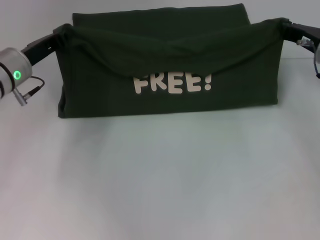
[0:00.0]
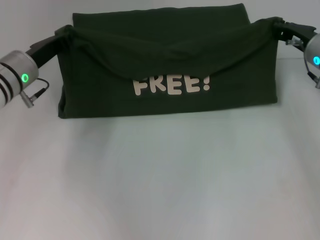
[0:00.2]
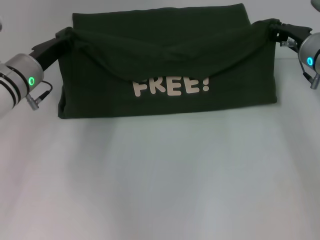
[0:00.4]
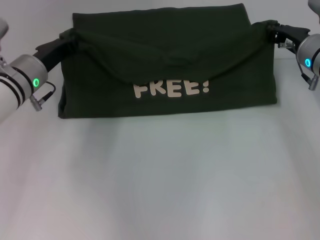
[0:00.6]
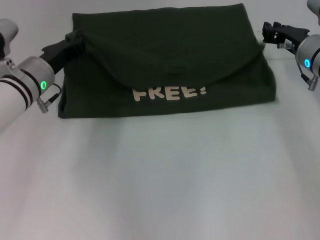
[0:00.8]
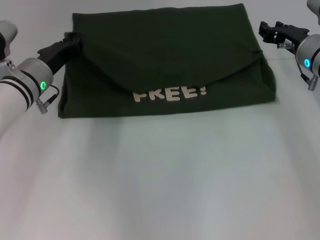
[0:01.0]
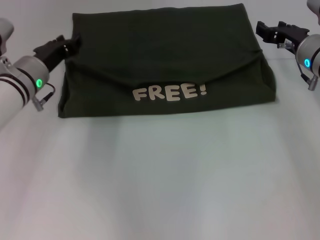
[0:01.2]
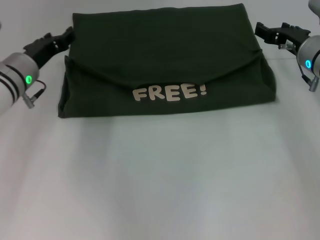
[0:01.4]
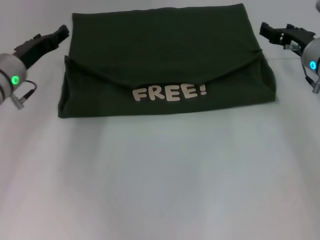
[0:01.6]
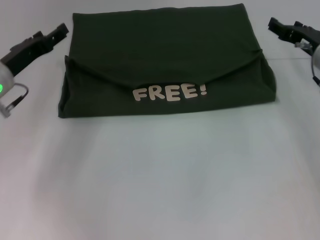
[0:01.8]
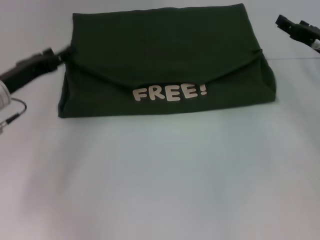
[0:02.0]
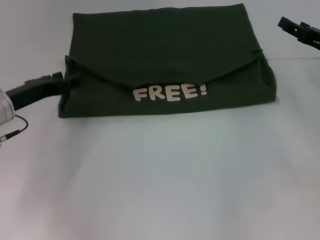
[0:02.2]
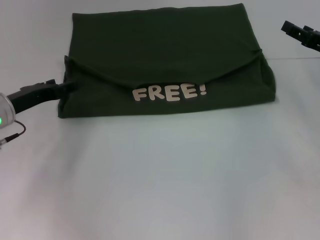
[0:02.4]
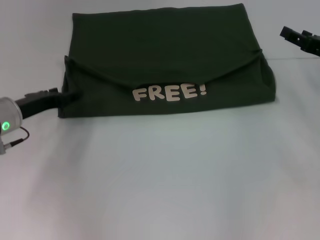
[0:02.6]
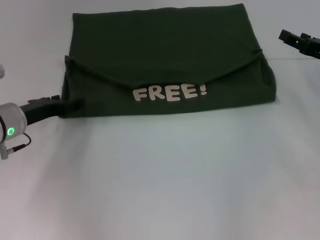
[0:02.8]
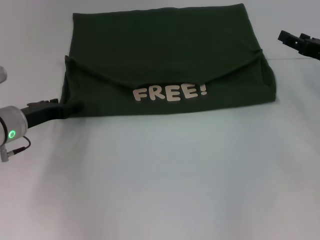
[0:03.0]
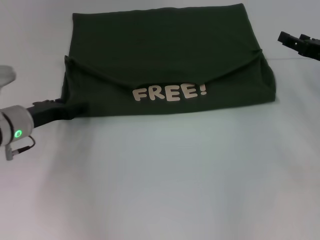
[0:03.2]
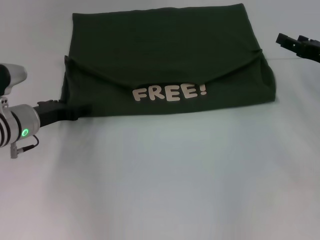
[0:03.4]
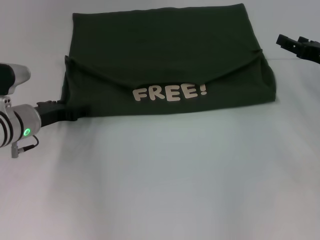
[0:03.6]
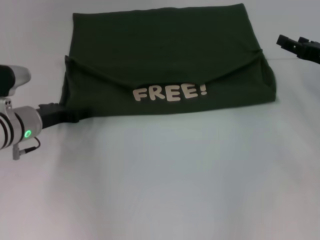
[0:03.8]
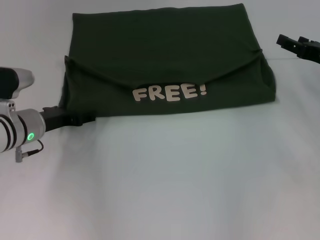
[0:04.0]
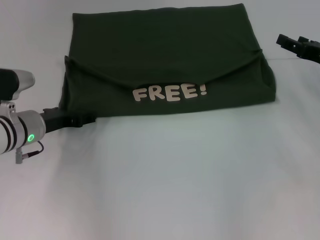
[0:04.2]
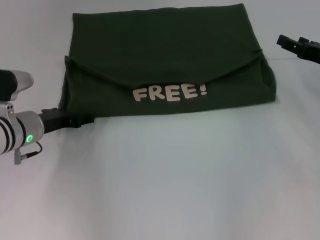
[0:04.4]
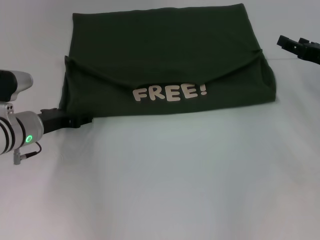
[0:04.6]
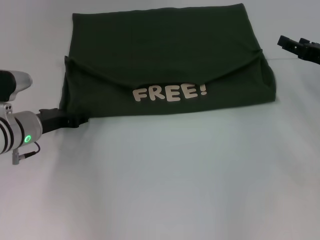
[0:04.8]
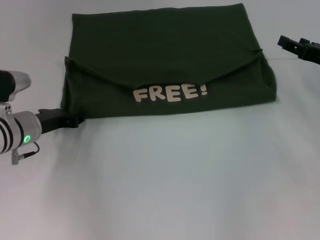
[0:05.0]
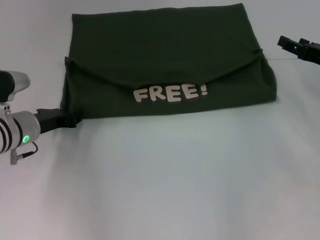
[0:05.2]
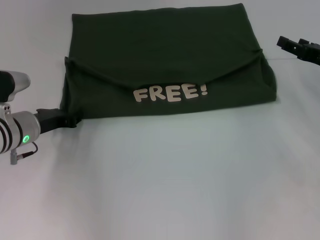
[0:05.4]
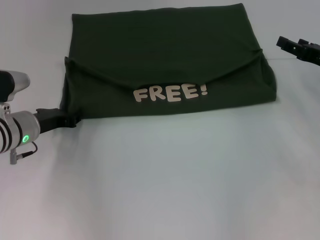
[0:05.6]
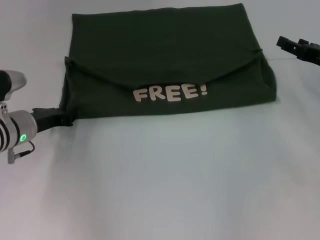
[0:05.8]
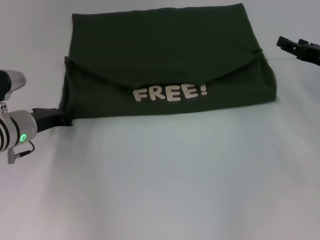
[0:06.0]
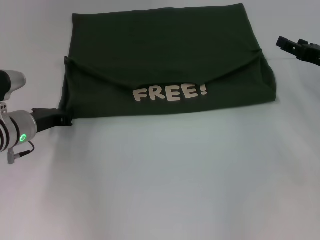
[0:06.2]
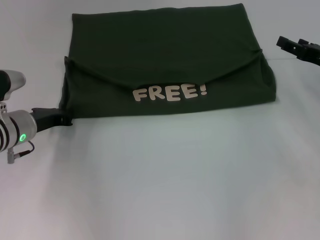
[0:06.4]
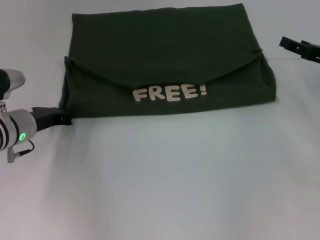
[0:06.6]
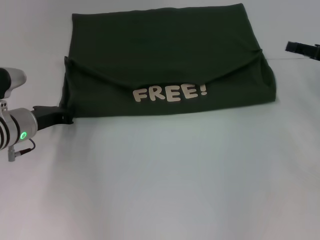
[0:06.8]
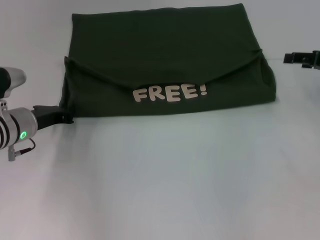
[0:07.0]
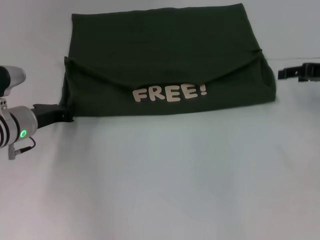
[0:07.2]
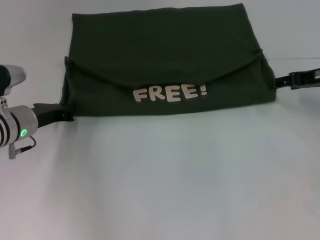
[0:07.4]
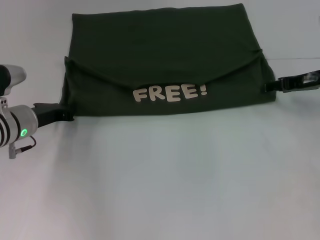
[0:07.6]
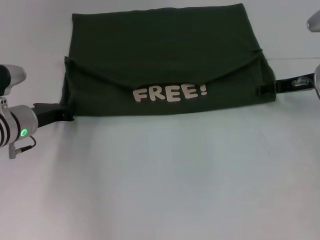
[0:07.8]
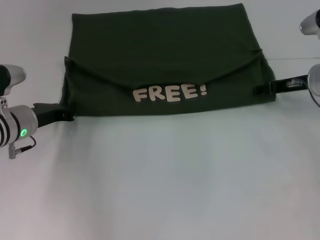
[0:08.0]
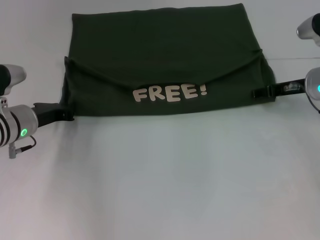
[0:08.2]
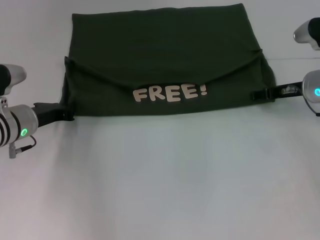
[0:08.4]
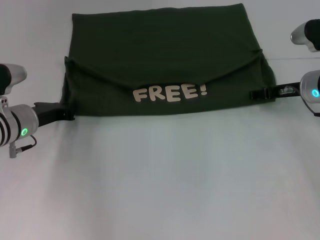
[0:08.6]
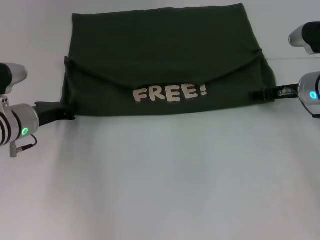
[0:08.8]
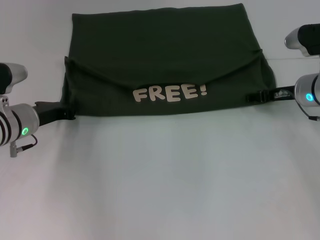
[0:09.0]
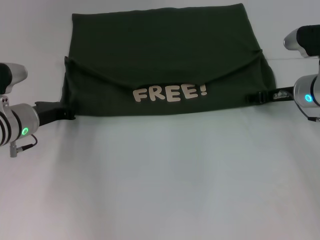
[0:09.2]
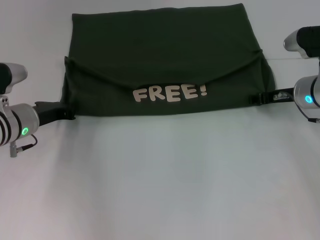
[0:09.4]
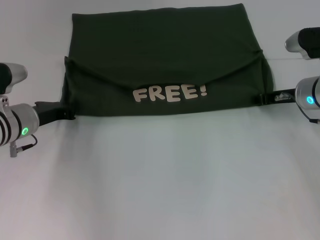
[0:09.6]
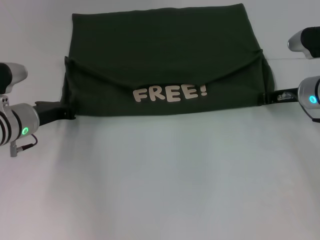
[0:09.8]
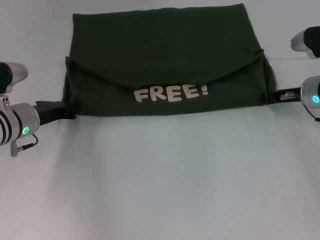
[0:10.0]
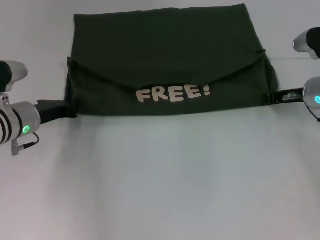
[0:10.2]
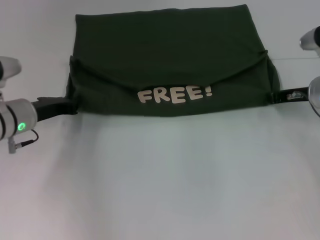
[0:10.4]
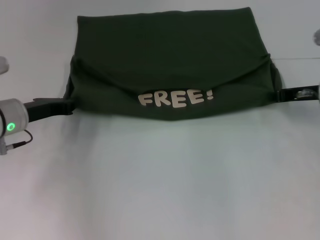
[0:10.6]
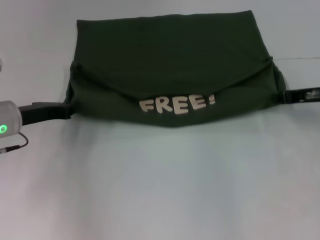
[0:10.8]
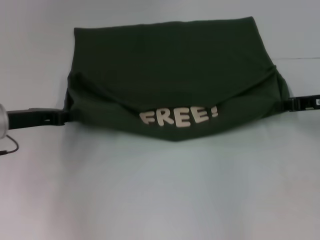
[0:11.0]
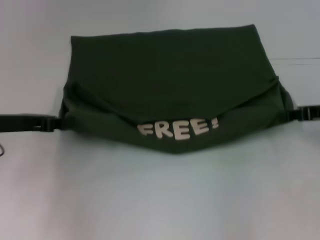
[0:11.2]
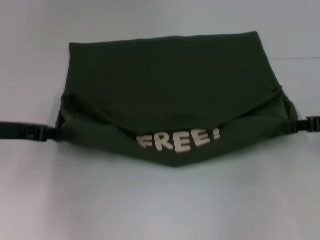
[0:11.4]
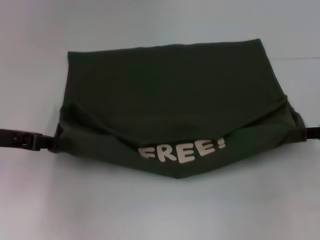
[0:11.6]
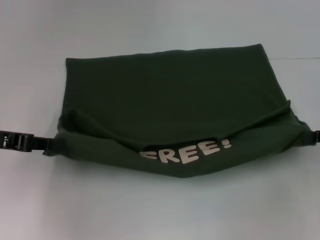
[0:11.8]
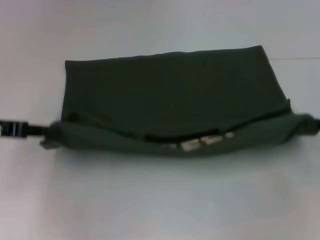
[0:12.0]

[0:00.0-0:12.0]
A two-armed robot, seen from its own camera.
Step, 0:01.0 to 0:01.2: Fold the clothes with your left hand.
Step, 0:01.4 to 0:11.6: Pull the clothes with your left hand.
Step, 0:01.4 to 0:11.6: Pull the clothes with your right hand.
0:00.0 to 0:01.6: The right gripper opens its fingers; the left gripper opens.
0:01.6 to 0:03.0: The left gripper changes place by some 5 cm, while the right gripper travels to the right by some 5 cm.
0:03.0 to 0:04.4: The grippers move only a little.
0:04.4 to 0:06.0: The left gripper closes up.
0:06.0 to 0:07.6: The right gripper moves approximately 5 cm.
0:07.6 to 0:09.0: The right gripper shifts by approximately 5 cm.
0:09.0 to 0:10.4: The right gripper closes its fingers.
0:10.4 to 0:12.0: The left gripper heads upward, to the left and backward, covering roughly 15 cm. Meanwhile the right gripper travels backward and to the right by approximately 15 cm.

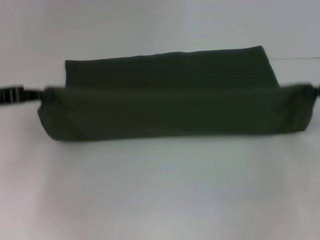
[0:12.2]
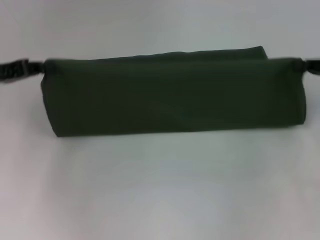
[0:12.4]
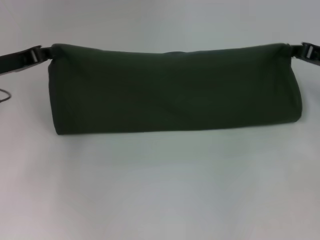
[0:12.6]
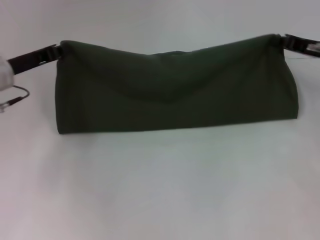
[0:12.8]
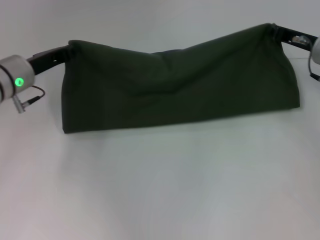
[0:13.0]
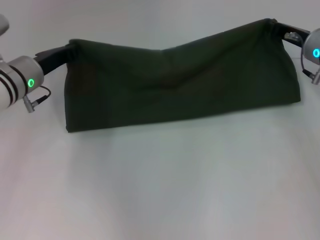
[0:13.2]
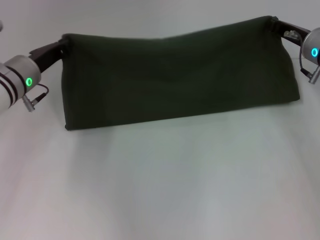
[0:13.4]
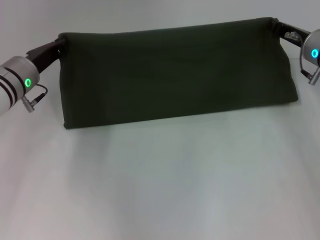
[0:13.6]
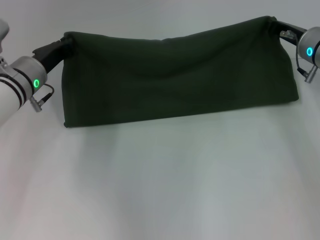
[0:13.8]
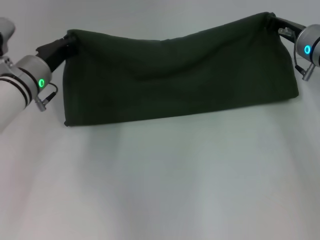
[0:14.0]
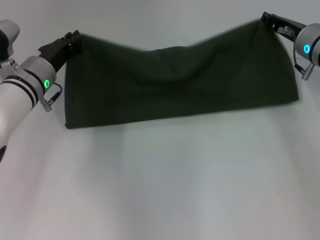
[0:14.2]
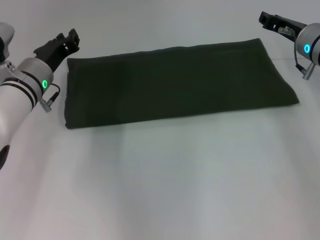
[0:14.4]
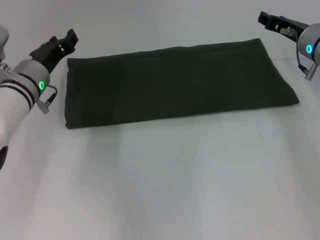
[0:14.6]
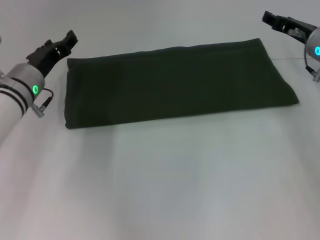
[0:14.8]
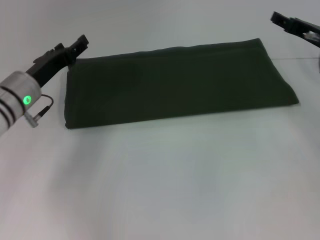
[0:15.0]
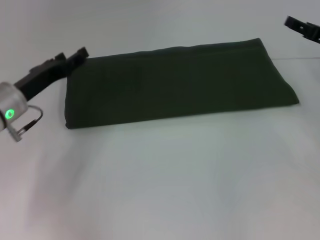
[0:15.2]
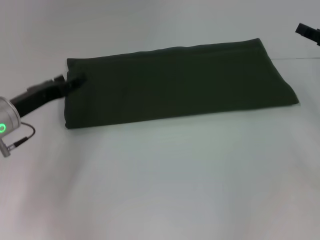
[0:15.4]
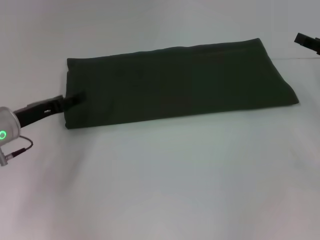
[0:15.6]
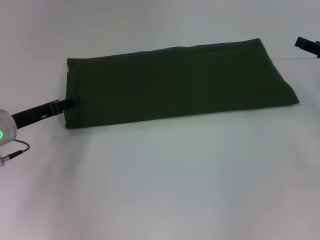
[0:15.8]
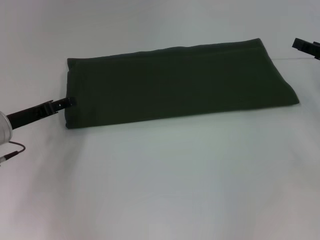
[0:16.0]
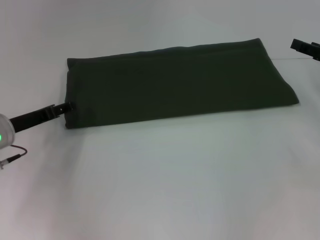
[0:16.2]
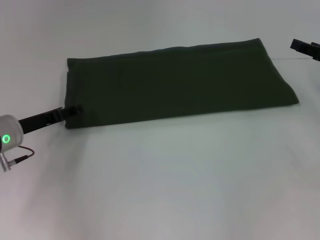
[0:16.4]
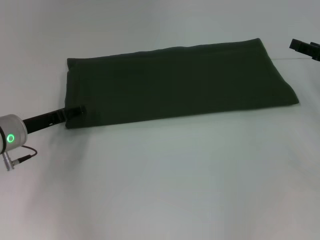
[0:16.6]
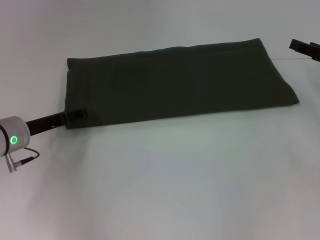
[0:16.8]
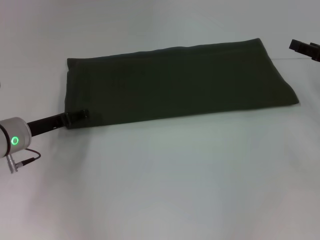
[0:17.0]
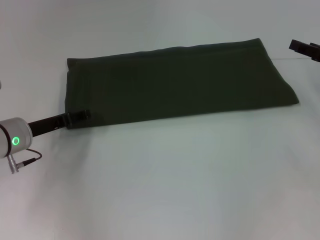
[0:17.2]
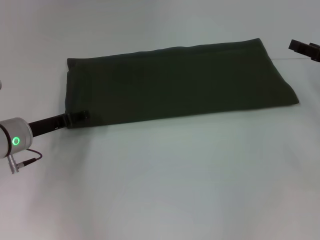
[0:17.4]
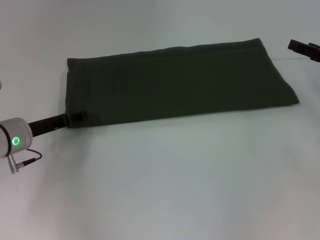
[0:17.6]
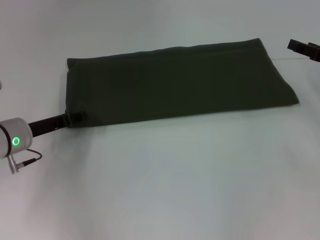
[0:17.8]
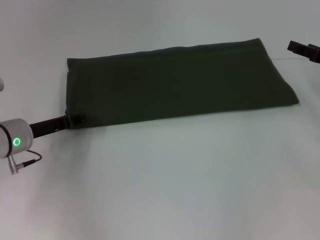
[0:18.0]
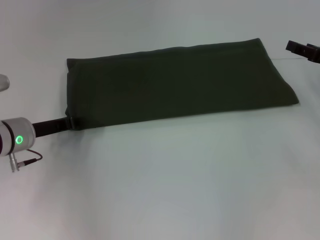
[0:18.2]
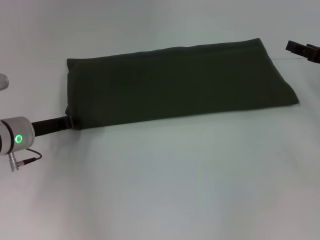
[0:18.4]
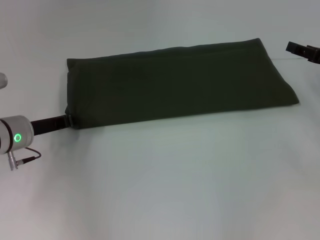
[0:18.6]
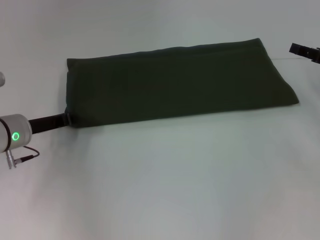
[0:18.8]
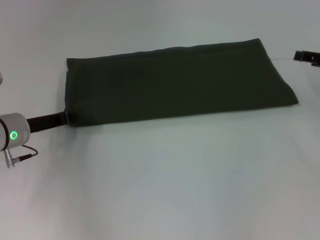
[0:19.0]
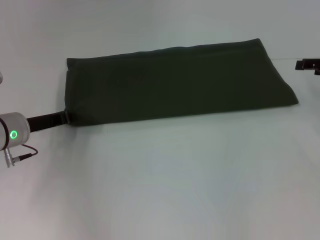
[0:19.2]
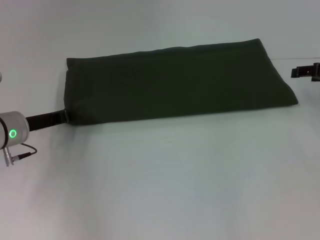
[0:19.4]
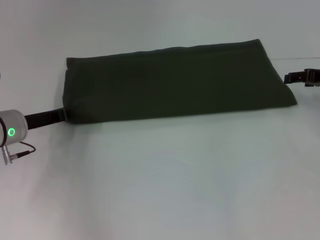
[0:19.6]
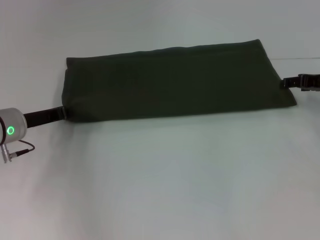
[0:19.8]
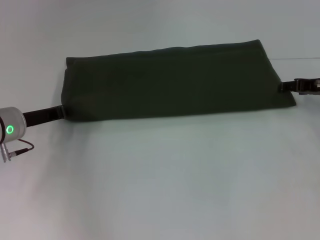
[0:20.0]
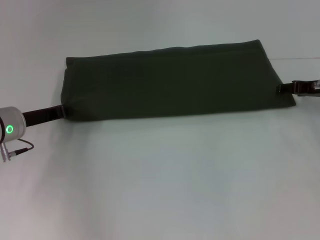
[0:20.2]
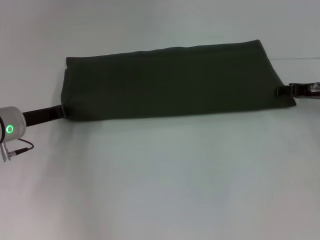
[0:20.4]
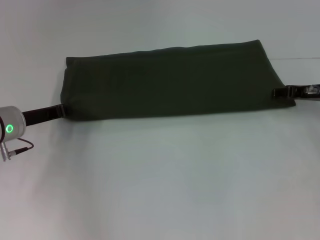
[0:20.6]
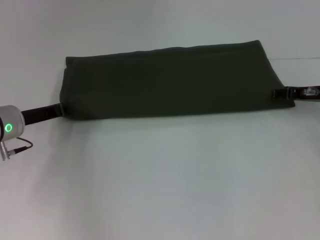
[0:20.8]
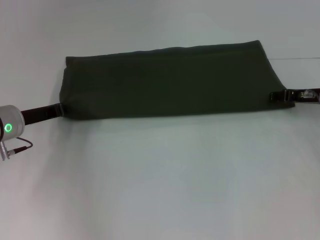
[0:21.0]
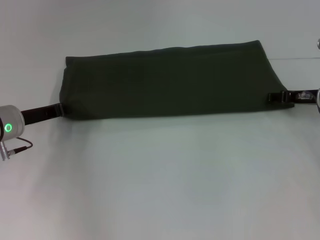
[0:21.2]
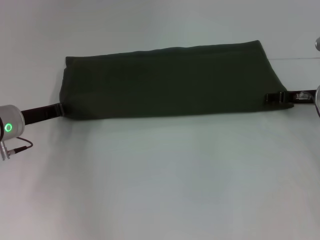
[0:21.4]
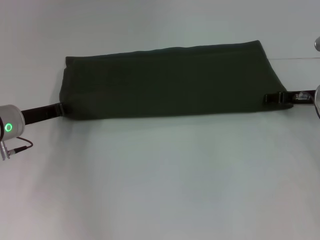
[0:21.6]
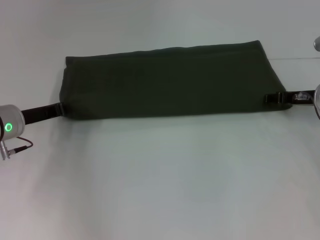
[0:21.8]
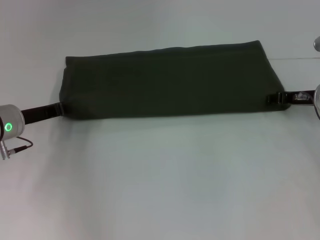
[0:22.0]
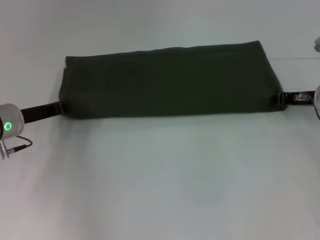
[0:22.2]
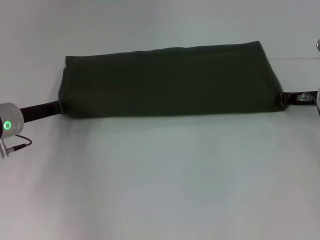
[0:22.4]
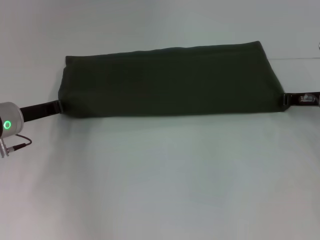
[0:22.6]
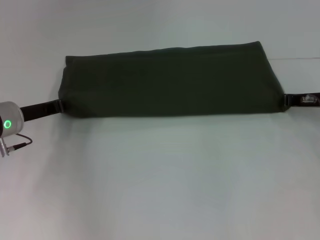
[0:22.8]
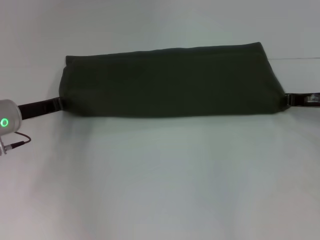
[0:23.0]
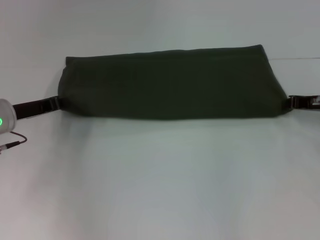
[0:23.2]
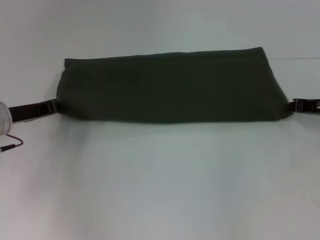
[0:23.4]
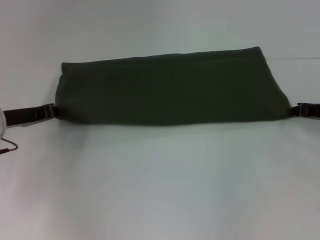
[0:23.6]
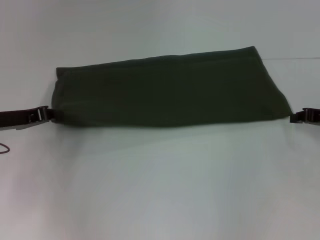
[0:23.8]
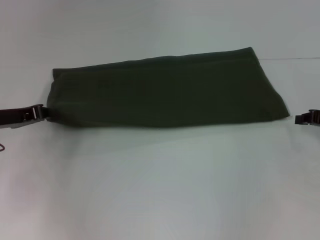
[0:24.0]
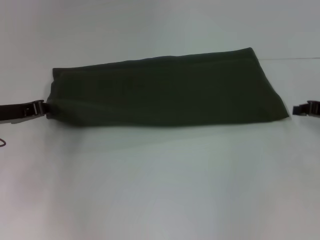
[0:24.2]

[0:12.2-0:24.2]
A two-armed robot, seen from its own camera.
Step, 0:12.2 to 0:14.4: Fold the clothes with your left hand.
Step, 0:12.2 to 0:14.4: Fold the clothes with your right hand.
0:12.2 to 0:13.8: The left gripper shifts approximately 15 cm to the right, forward and downward. The right gripper heads forward and to the left, covering about 15 cm.
0:13.8 to 0:15.2: The right gripper travels to the right by some 10 cm, and opens up, while the left gripper moves backward, some 5 cm, and opens.
0:16.6 to 0:18.2: There are only small adjustments of the grippers.
0:18.2 to 0:19.8: The left gripper closes up.
0:19.8 to 0:21.2: The right gripper changes place by approximately 5 cm.
0:21.2 to 0:22.6: The right gripper closes up.
0:22.6 to 0:24.2: The right gripper moves about 5 cm. The left gripper changes place by approximately 5 cm.
